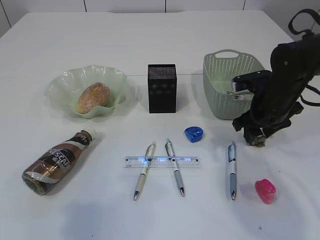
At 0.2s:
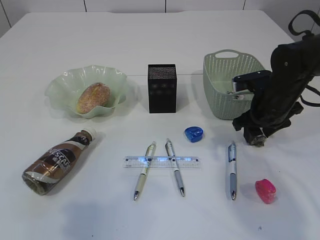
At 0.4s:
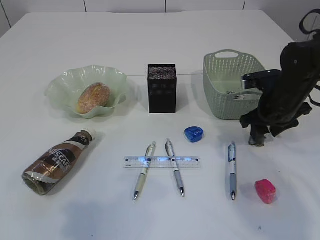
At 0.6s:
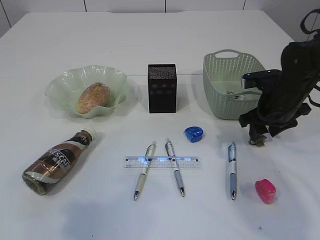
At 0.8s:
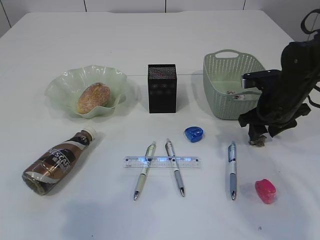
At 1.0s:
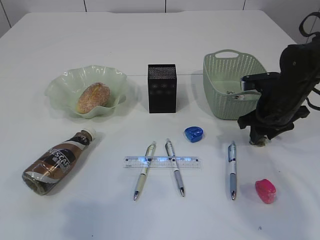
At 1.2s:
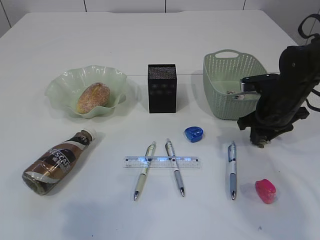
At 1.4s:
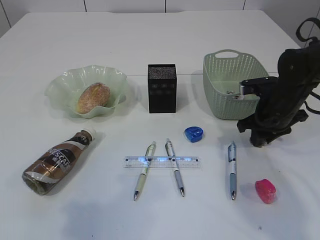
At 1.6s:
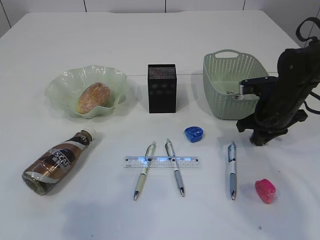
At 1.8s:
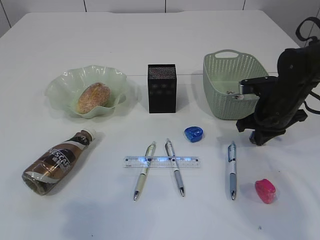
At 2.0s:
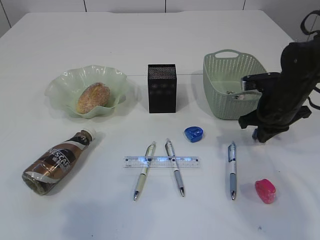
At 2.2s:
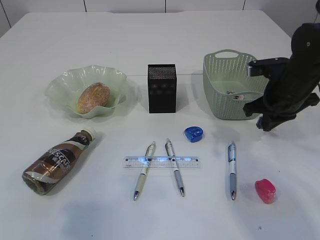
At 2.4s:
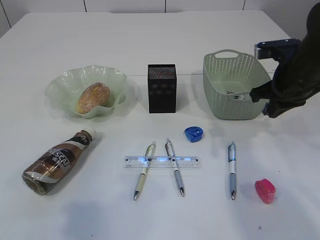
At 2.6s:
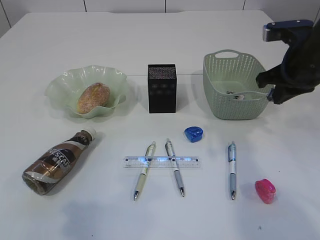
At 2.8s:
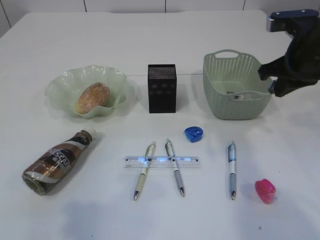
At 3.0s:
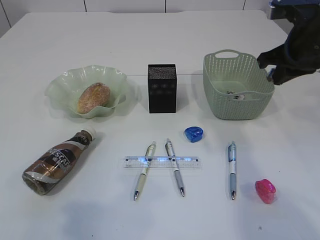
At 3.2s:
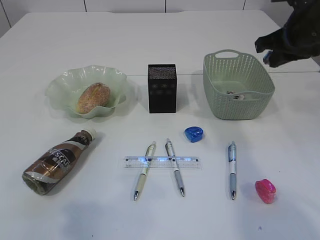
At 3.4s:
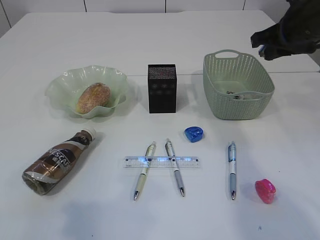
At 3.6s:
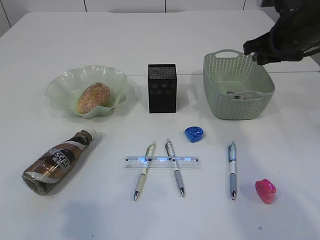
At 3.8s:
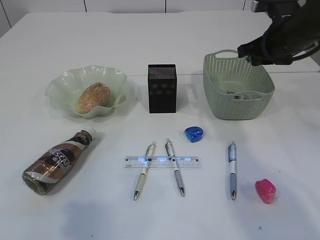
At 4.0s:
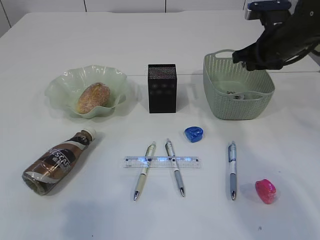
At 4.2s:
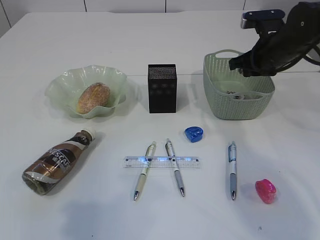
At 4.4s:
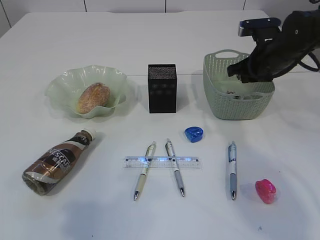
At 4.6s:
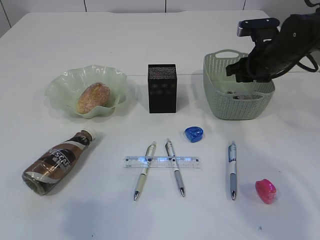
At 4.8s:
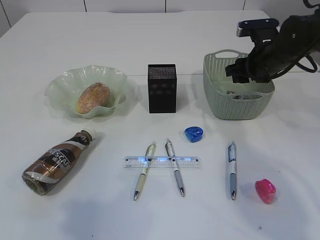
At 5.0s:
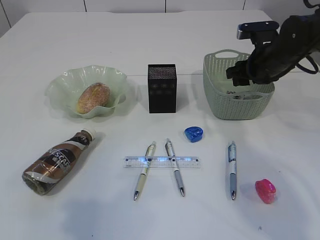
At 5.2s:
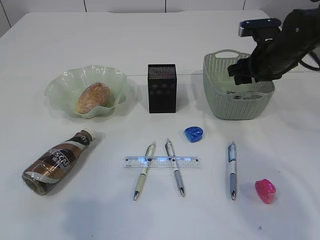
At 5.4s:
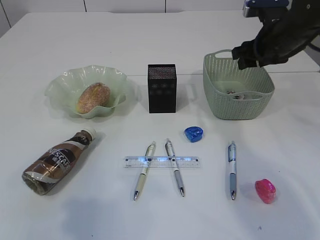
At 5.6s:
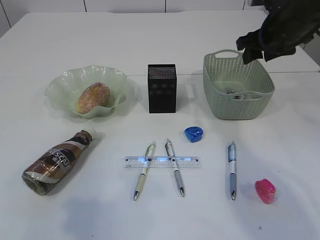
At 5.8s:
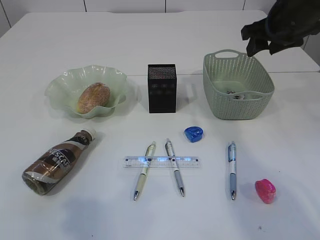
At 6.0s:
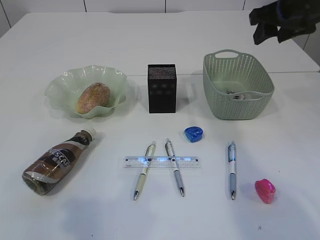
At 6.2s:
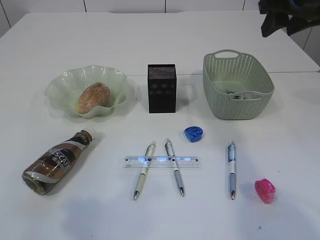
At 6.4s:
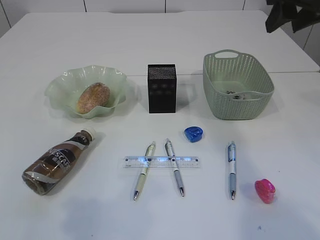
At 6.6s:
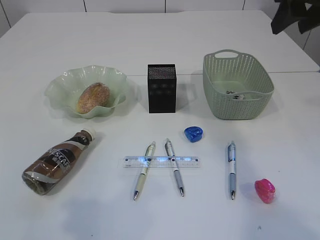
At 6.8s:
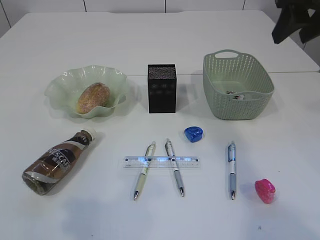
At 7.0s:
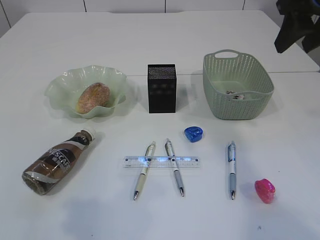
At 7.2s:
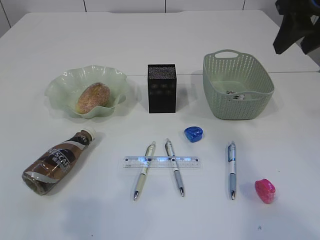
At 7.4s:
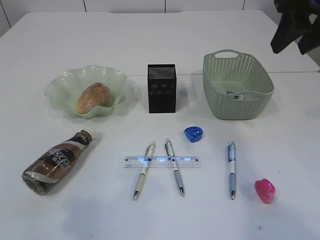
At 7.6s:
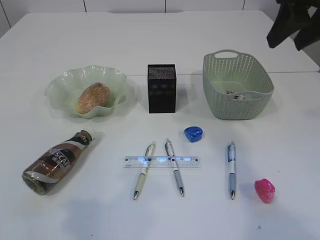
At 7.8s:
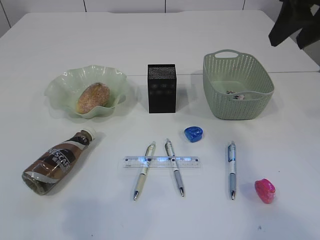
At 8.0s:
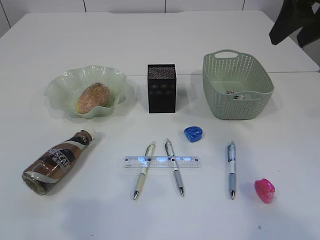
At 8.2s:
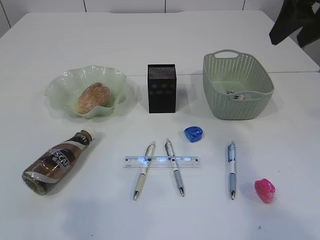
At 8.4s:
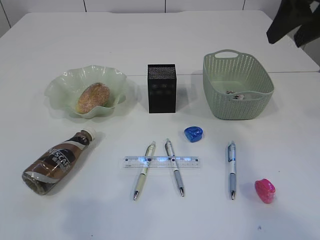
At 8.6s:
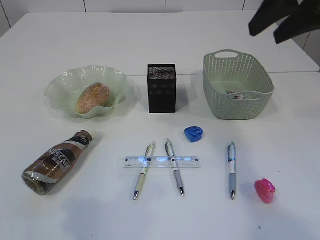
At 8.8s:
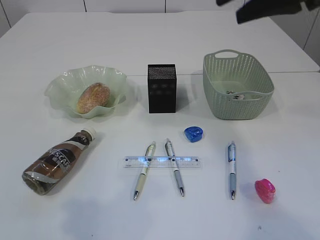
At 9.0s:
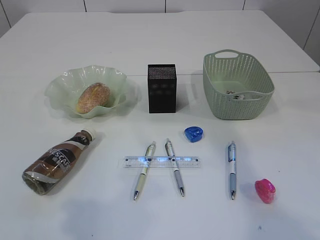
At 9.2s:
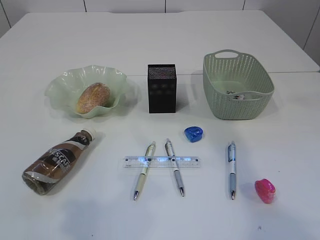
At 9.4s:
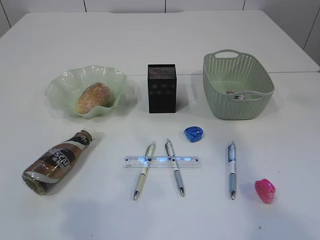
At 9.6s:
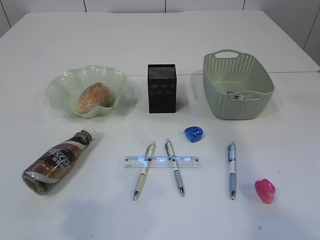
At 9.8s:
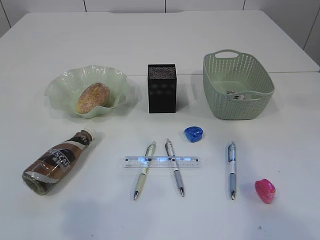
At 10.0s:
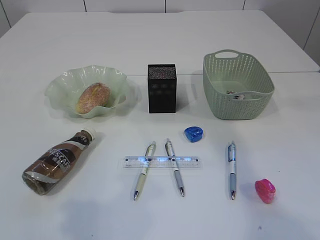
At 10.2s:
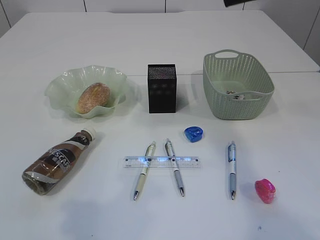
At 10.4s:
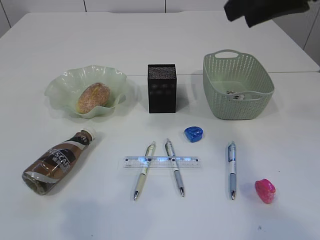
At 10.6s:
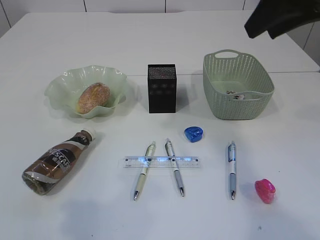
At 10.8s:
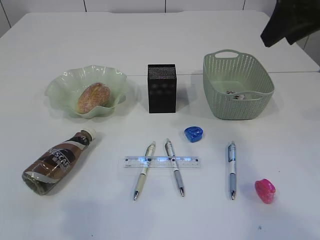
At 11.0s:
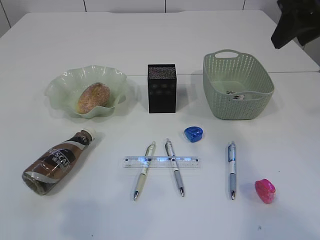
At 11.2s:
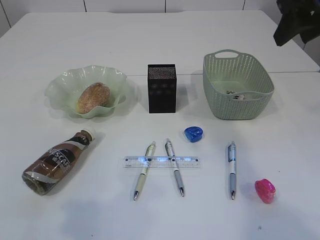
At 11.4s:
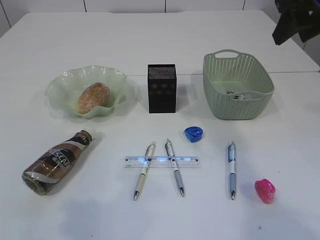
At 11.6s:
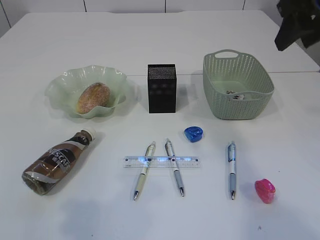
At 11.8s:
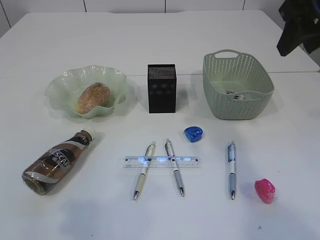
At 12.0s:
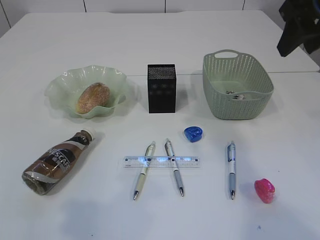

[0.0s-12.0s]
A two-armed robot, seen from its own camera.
Step, 0.0s to 2.4s: Pick up the waste paper.
Step, 2.6s to 6.6s: Place the waste paper in the basket.
0.0s to 1.6s: The right gripper closes its fingers.
1.6s to 3.0s: The right gripper is displaced upward by about 15 cm.
3.0s to 4.4s: The right gripper shifts about 10 cm forward and downward.
4.4s to 6.0s: The right gripper heads upward, covering about 10 cm, and opens its fingers.
6.0s to 7.6s: The right gripper heads backward and upward, covering about 10 cm.
7.6s to 9.0s: The right gripper travels to the left and upward by about 10 cm.
10.4s to 12.0s: The right gripper ends up some 5 cm from where it was.

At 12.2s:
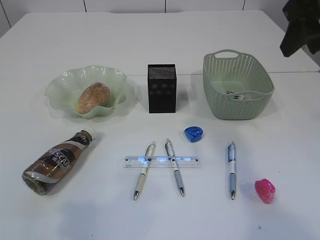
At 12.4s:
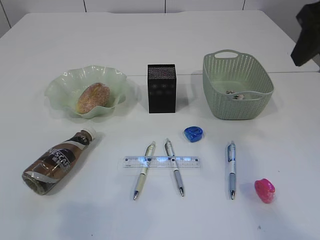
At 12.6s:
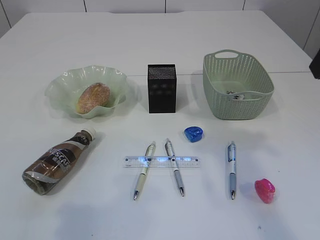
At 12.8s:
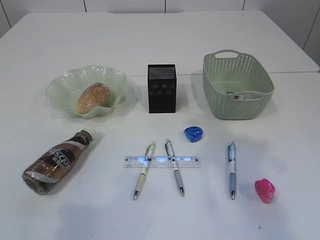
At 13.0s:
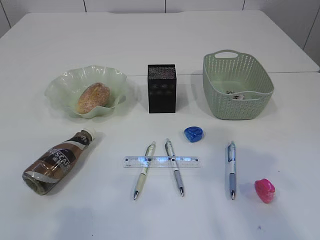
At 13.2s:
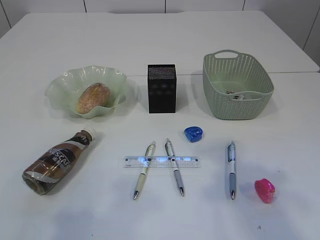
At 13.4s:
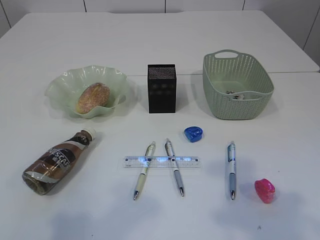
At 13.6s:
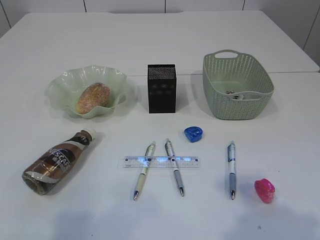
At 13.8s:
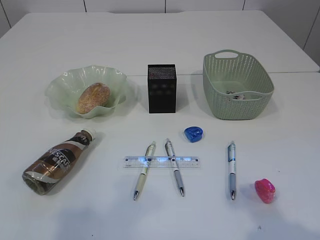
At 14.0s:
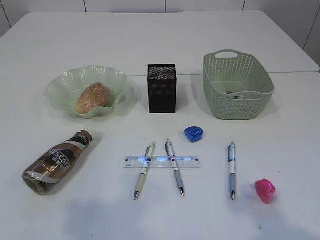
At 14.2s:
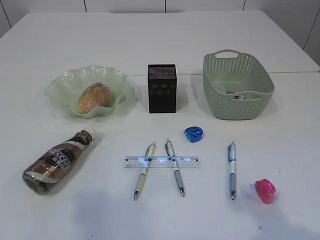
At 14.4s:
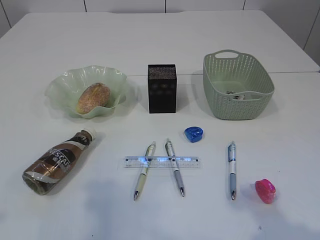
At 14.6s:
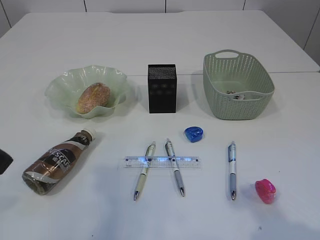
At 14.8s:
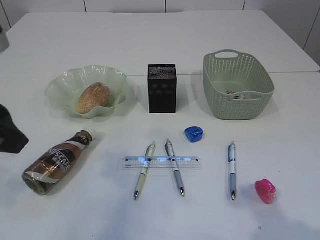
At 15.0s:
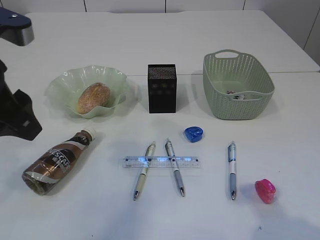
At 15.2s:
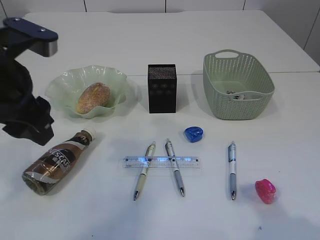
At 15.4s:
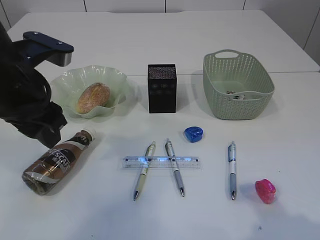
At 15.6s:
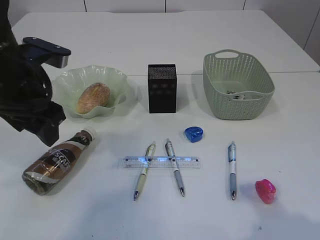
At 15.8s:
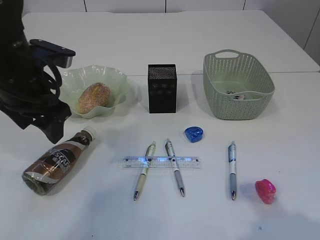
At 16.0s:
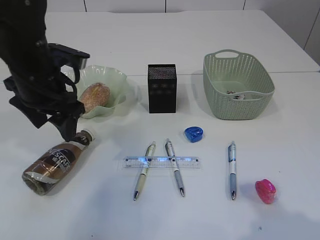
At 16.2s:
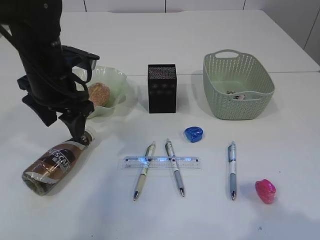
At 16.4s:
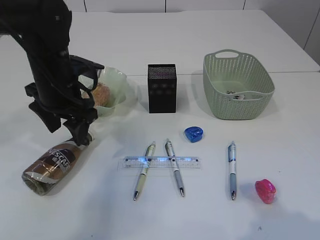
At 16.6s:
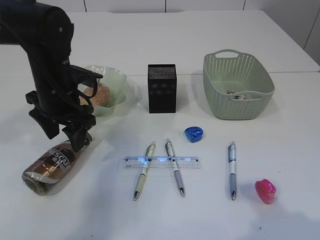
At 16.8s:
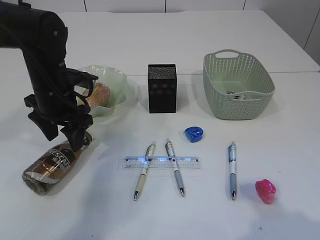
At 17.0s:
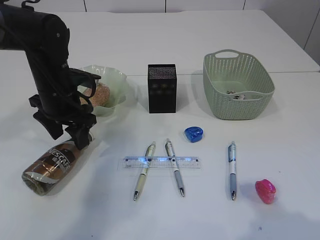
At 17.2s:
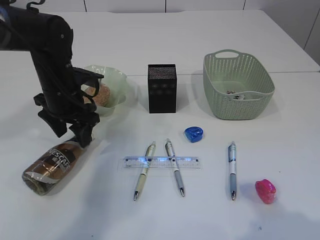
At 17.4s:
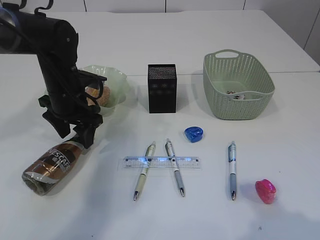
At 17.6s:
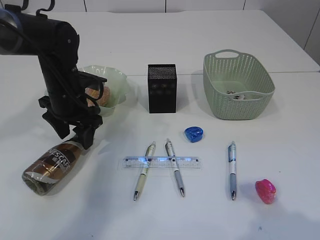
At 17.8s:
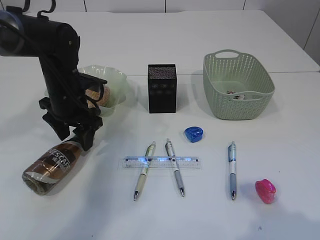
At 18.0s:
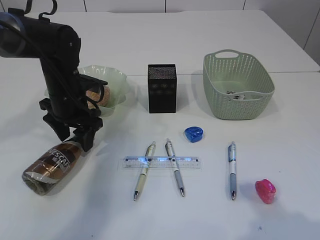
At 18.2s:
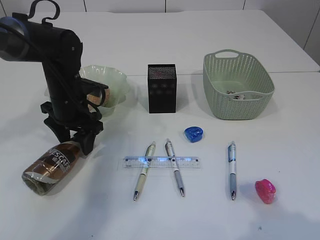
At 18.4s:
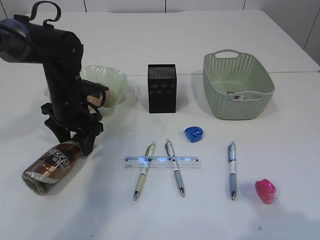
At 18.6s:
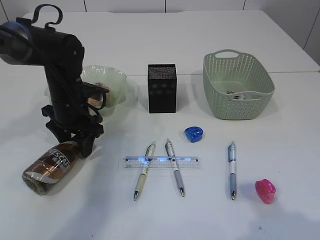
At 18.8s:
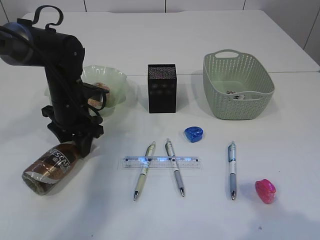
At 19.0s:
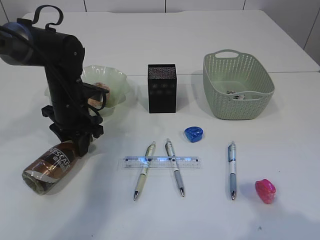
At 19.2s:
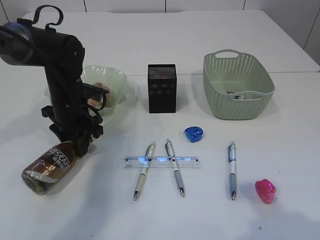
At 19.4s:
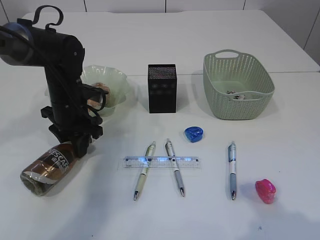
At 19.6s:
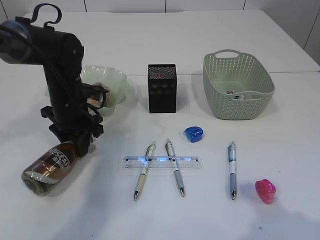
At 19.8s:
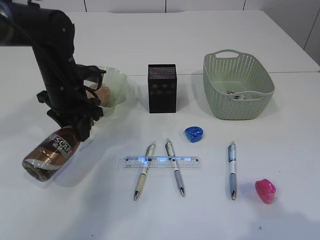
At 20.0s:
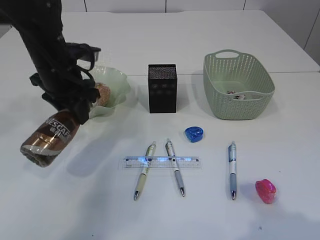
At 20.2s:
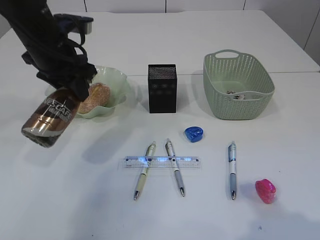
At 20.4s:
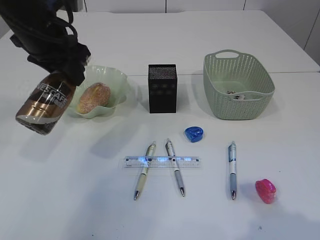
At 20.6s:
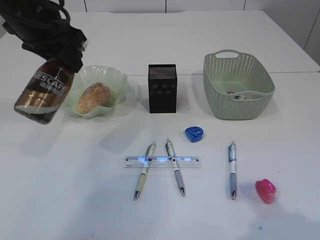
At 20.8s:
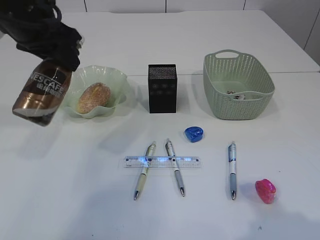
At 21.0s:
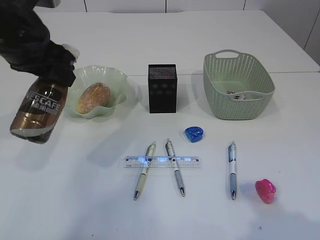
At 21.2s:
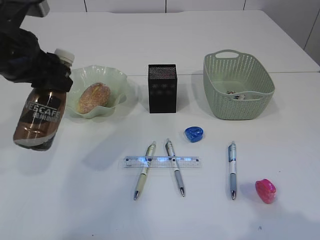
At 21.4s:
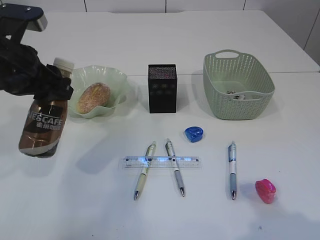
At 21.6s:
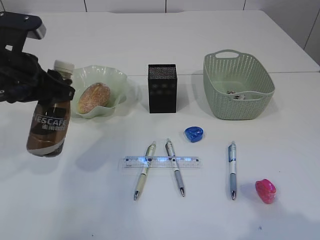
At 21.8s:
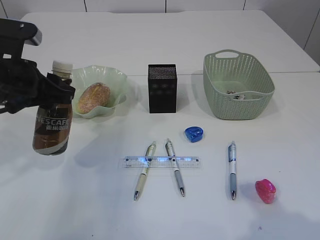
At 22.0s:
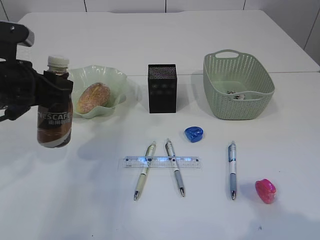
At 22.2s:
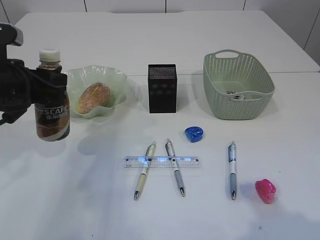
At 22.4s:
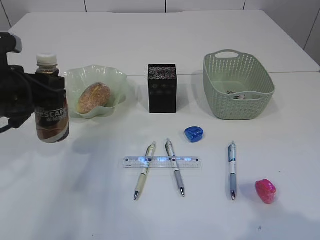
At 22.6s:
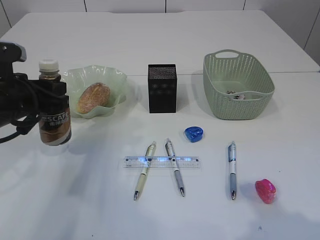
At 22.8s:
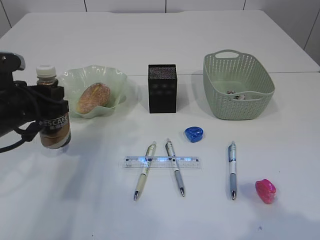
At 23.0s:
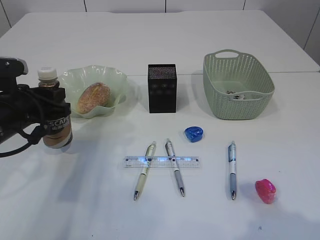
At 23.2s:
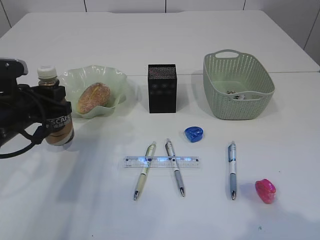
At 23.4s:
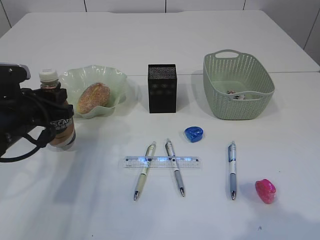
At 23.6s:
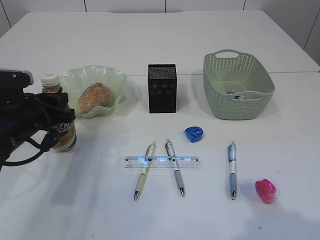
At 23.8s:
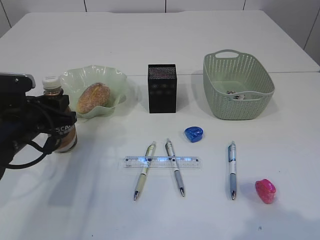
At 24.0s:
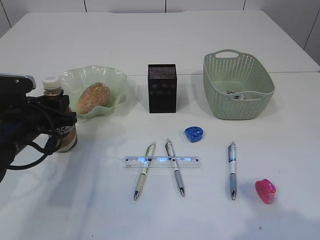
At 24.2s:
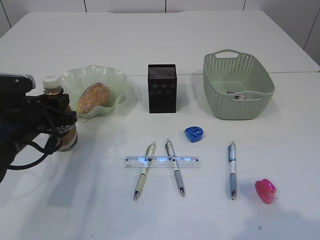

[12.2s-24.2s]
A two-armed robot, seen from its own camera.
Step, 12.2s to 20.8s: Pick up the bottle with the left arm.
12.2s to 13.8s: The right gripper shifts some 20 cm backward.
13.8s to 15.2s: The left gripper shifts roughly 20 cm forward and to the right.
15.2s to 16.6s: The left gripper shifts about 15 cm forward and downward.
16.6s to 18.2s: The left gripper ends up some 5 cm from where it was.
18.2s to 19.8s: The left gripper closes up.
19.8s to 21.2s: The left gripper shifts some 15 cm upward and backward.
21.2s to 22.6s: The left gripper moves downward, roughly 10 cm.
22.6s to 24.2s: The left gripper moves downward, some 5 cm.
